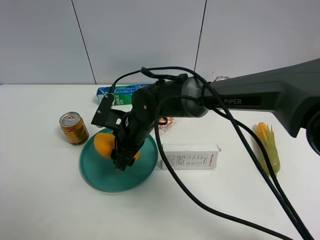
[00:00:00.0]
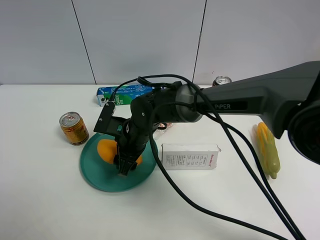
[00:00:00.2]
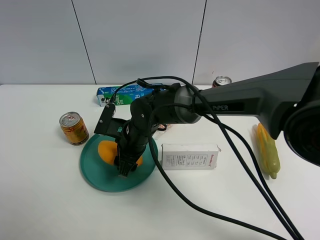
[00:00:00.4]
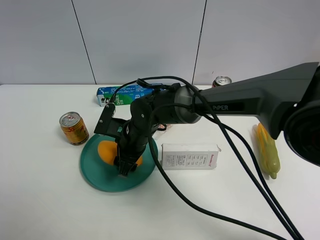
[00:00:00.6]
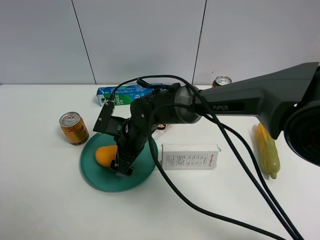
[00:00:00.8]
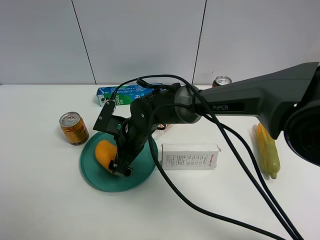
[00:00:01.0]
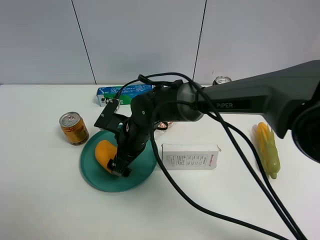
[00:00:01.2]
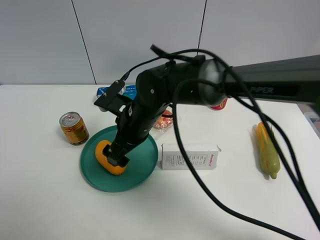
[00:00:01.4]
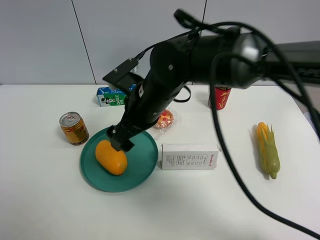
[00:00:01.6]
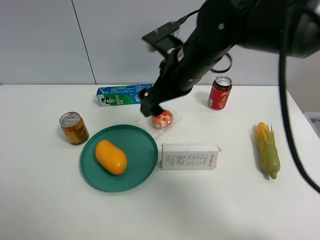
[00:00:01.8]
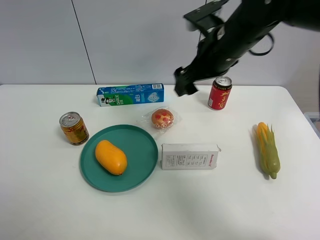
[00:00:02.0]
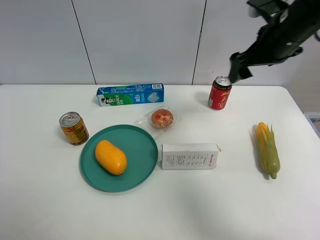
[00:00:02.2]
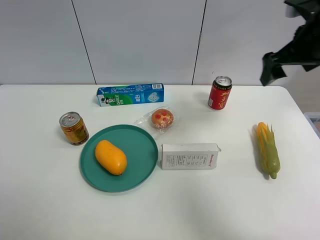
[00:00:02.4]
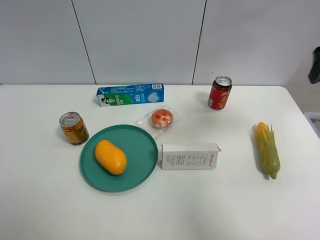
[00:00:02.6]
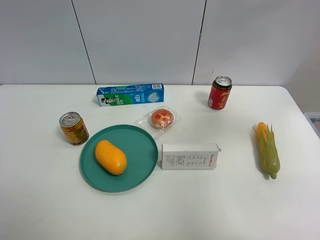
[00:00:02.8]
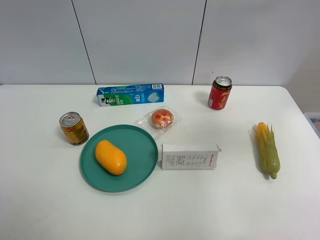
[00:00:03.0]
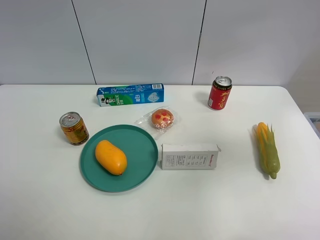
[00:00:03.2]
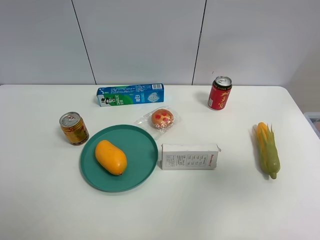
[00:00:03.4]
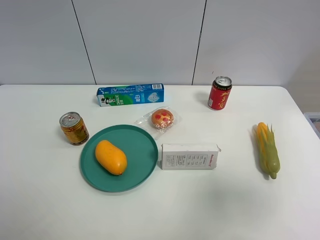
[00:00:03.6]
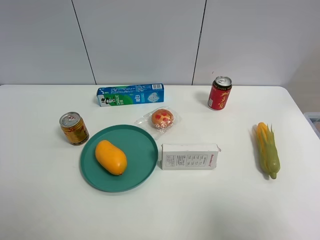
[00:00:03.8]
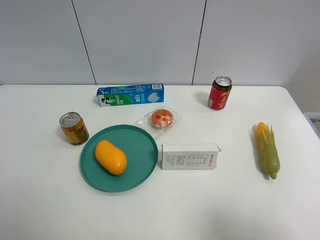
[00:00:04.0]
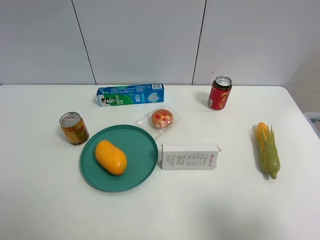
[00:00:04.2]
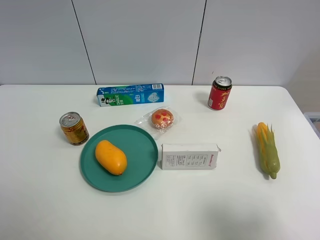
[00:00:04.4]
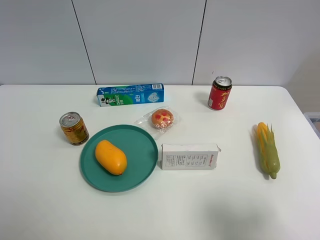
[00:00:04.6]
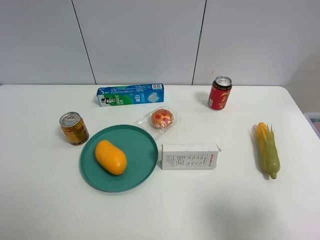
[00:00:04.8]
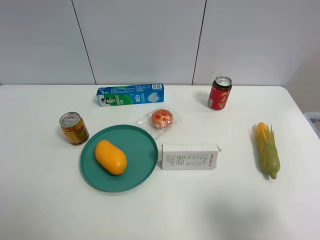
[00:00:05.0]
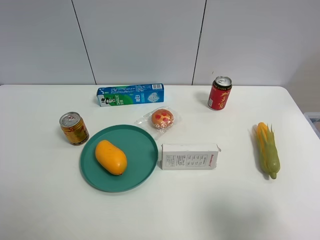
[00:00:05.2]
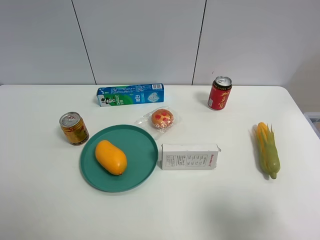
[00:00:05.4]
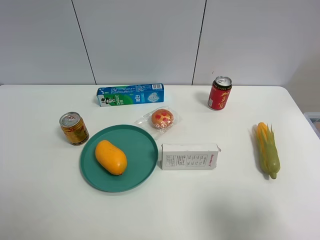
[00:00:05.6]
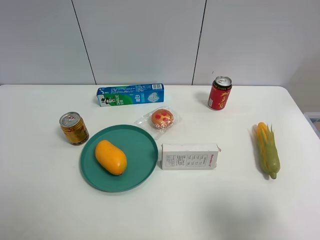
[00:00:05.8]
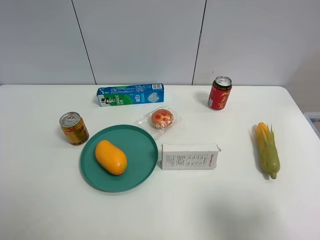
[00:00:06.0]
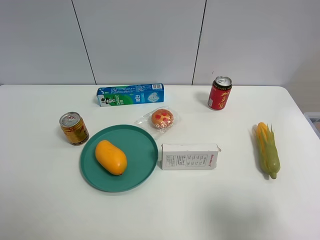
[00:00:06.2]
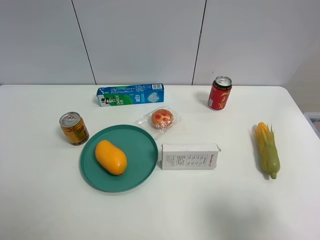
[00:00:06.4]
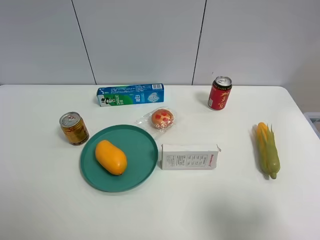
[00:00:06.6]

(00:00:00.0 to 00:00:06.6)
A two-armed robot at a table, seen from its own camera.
Task of the whole recording: the gripper move the object.
00:00:00.0 - 00:00:01.6: The right gripper is displaced upward by about 5 cm, and opens up.
00:00:01.6 - 00:00:03.2: The right gripper heads to the right and upward, covering about 40 cm.
00:00:03.2 - 00:00:05.0: The right gripper shifts approximately 20 cm backward and downward.
00:00:05.0 - 00:00:06.6: The two grippers keep their place.
